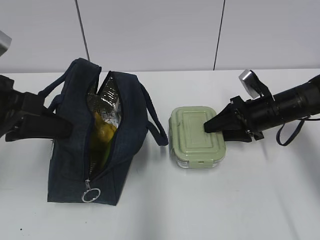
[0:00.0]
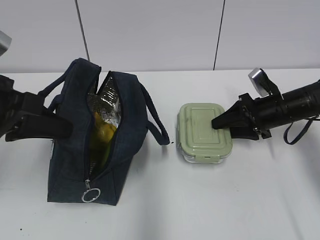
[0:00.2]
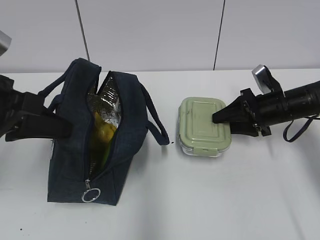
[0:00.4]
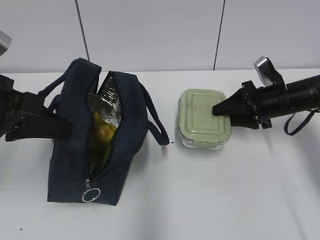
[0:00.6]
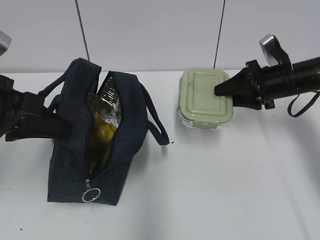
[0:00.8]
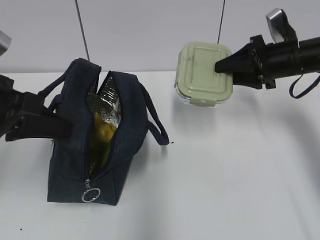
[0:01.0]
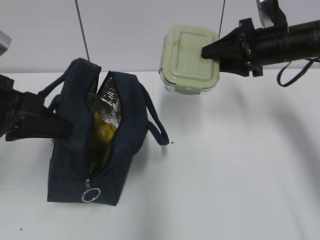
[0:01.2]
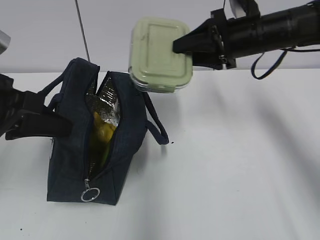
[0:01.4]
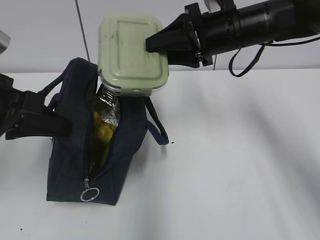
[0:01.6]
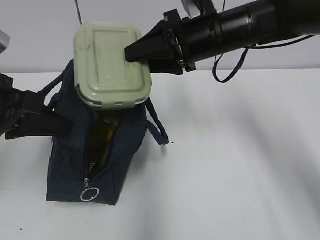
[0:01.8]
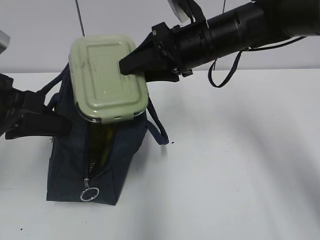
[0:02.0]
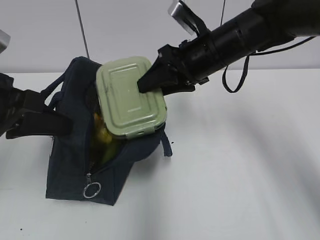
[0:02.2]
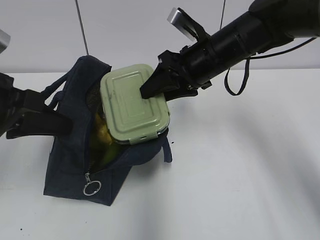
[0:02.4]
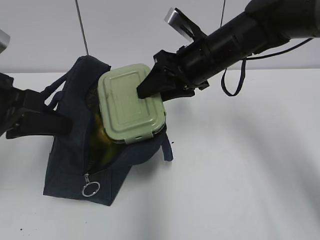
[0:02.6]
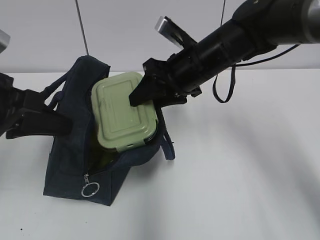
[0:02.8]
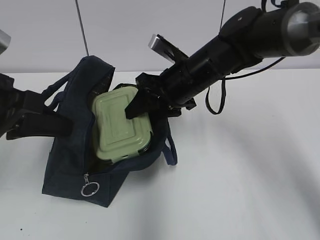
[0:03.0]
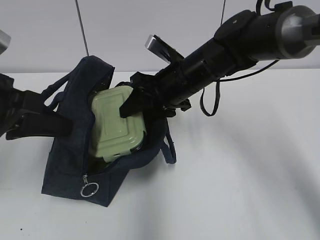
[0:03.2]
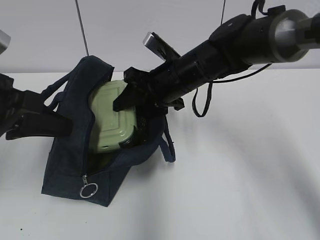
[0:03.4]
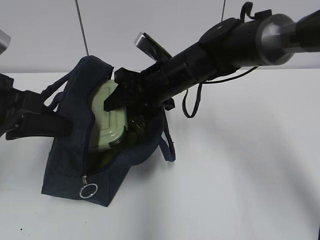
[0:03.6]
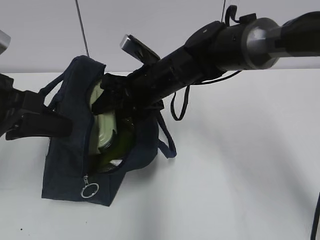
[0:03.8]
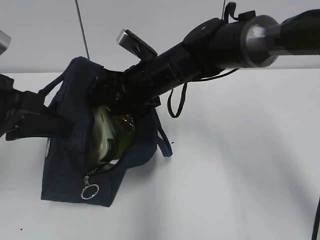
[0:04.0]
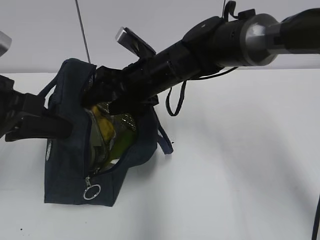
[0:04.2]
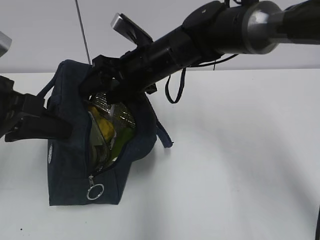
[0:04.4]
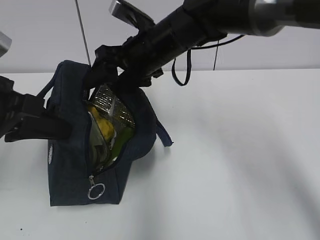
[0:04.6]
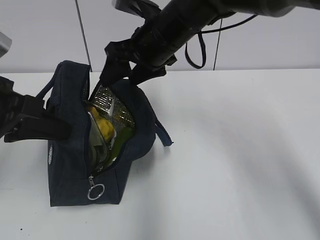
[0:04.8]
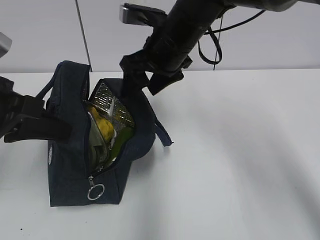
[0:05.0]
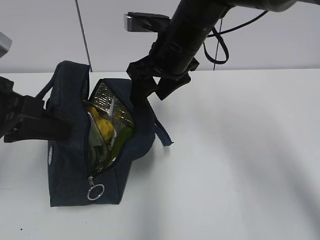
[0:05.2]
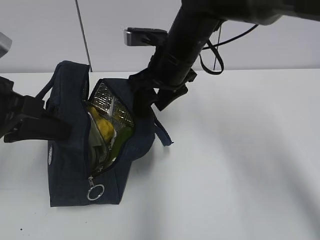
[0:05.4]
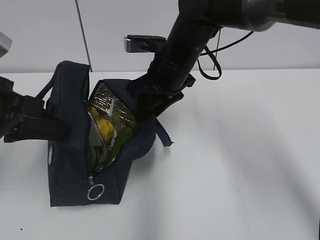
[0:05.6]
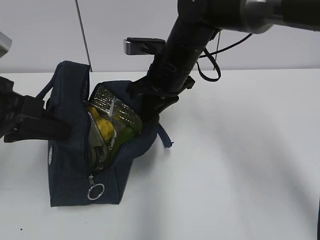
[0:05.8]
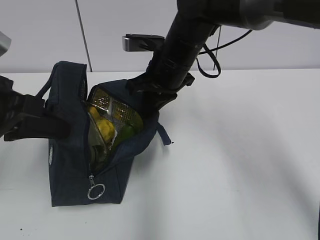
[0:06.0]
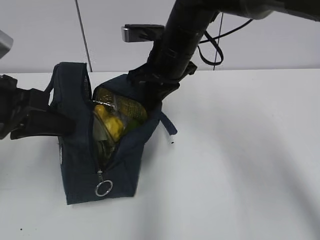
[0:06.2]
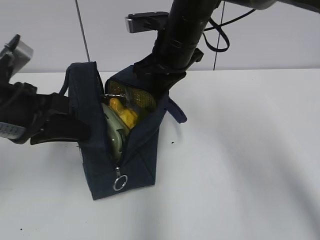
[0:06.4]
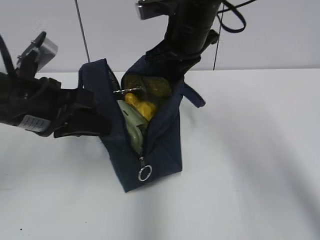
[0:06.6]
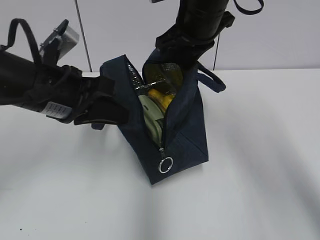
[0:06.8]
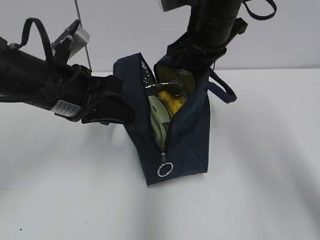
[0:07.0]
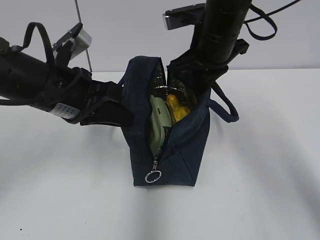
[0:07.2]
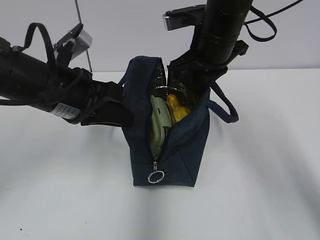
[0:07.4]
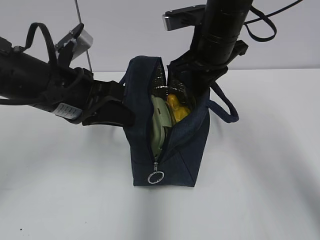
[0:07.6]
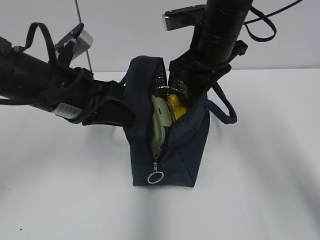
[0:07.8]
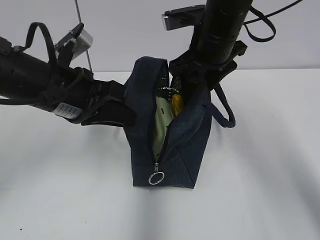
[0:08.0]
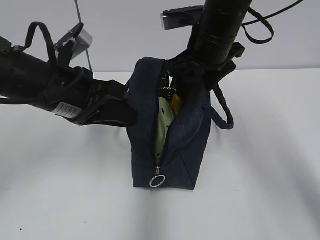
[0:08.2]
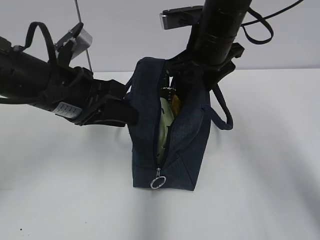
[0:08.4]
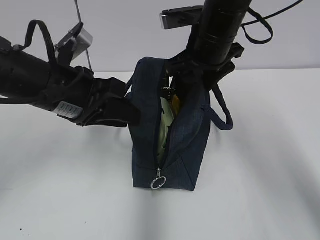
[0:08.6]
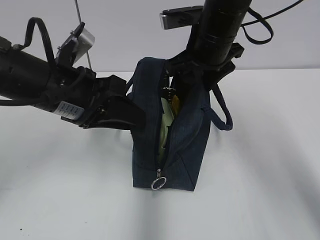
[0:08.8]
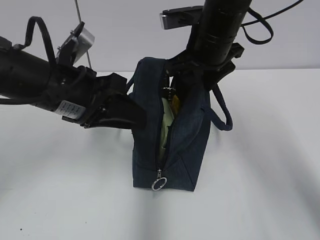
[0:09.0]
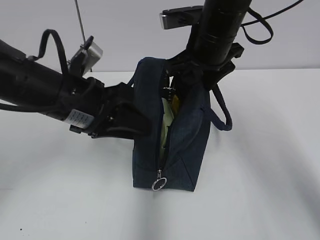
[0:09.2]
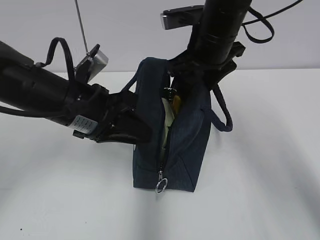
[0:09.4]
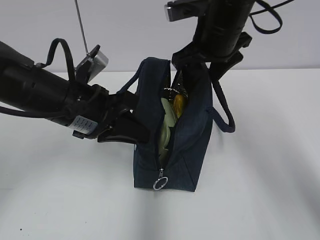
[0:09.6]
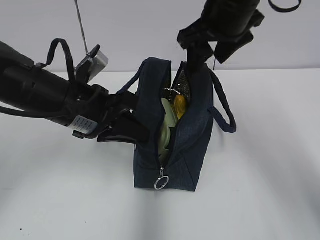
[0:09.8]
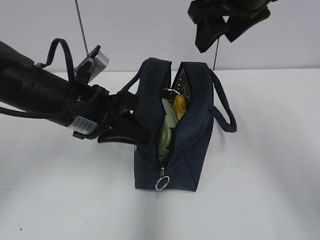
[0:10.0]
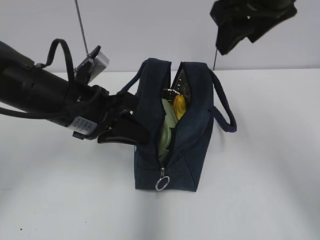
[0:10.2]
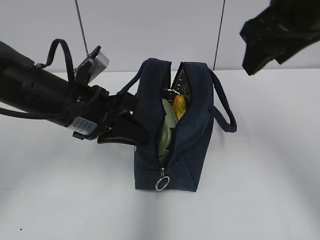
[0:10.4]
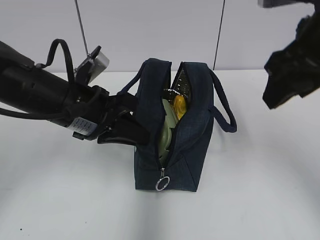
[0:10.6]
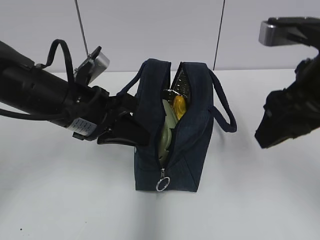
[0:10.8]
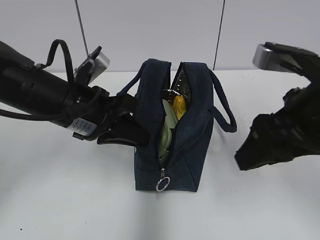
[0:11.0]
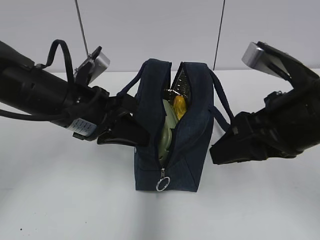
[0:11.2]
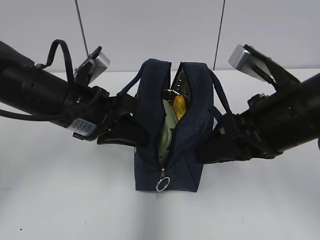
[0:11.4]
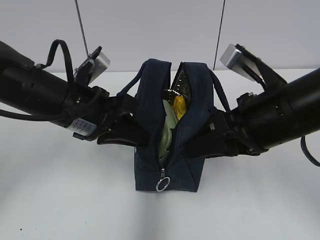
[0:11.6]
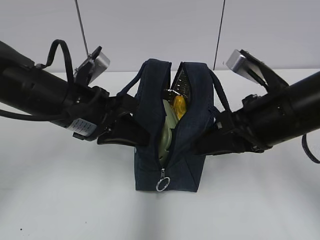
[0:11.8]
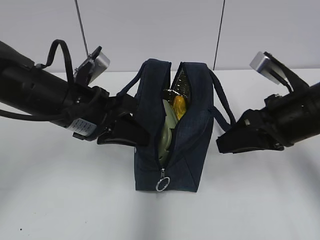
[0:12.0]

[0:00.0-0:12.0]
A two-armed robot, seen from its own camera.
Step, 0:04.6 to 0:05.8: Grab the lunch bag with your right hand.
Step, 0:06.0 to 0:09.4: Move the lunch bag to the right.
0:00.0 to 0:01.6: The right gripper heads upward and to the left, covering about 20 cm.
0:01.6 to 0:03.0: The right gripper heads downward and to the left, covering roughly 10 cm.
0:03.0 to 0:04.4: The right gripper goes some 5 cm to the left.
0:04.4 to 0:06.0: The right gripper closes.
0:06.0 to 0:07.6: The right gripper moves to the right, some 5 cm. Meanwhile the left gripper heads to the right and forward, covering roughly 10 cm.
0:07.6 to 0:09.0: The left gripper opens; the right gripper opens its fingers.
0:09.0 to 0:10.4: The left gripper closes its fingers. The right gripper goes about 15 cm backward, to the right and upward.
0:10.4 to 0:12.0: The right gripper heads downward, covering about 15 cm.

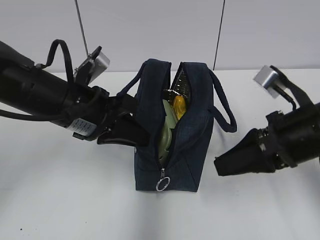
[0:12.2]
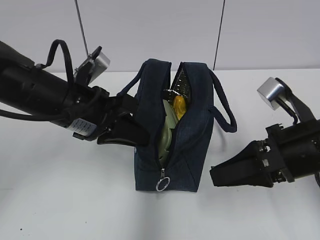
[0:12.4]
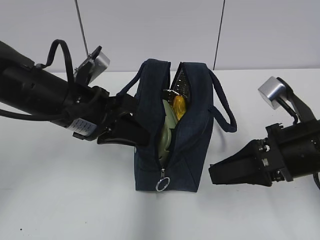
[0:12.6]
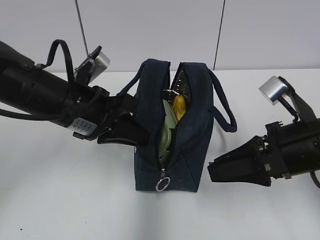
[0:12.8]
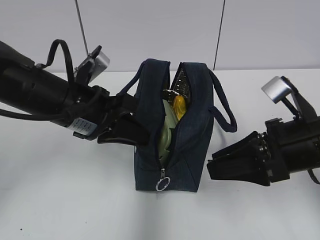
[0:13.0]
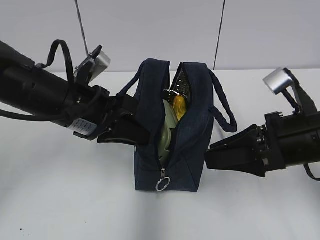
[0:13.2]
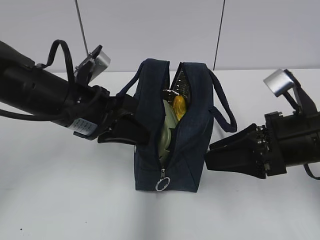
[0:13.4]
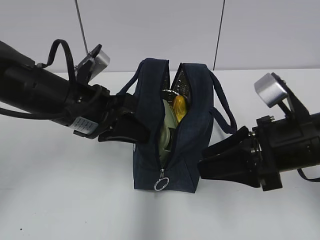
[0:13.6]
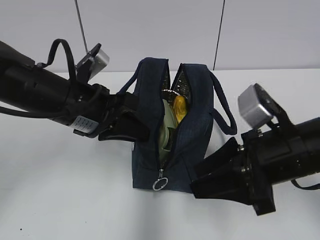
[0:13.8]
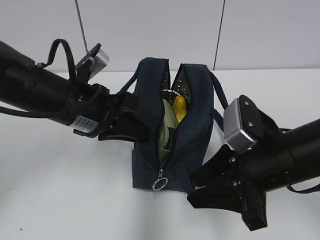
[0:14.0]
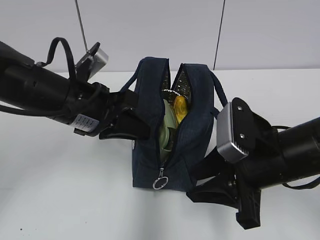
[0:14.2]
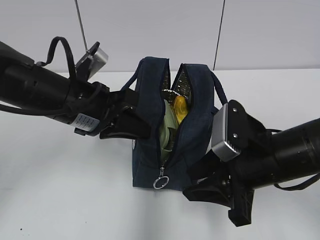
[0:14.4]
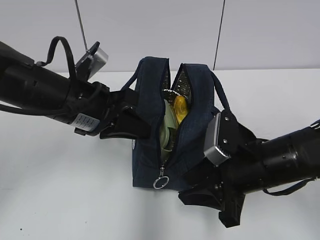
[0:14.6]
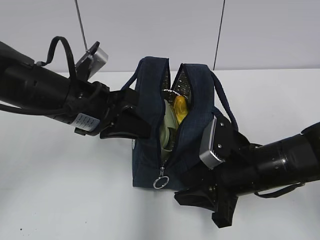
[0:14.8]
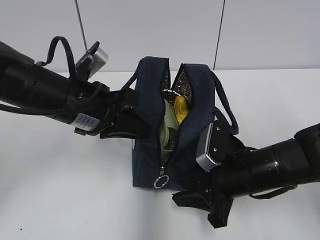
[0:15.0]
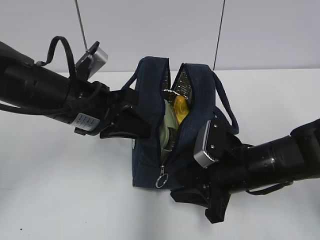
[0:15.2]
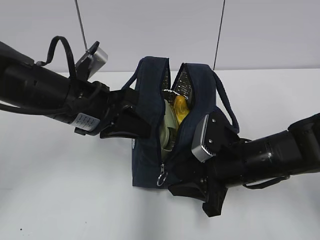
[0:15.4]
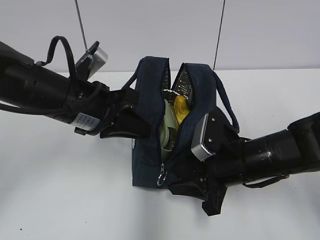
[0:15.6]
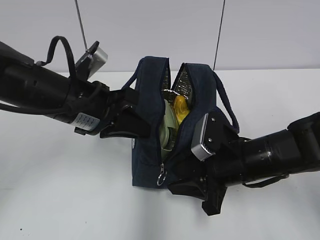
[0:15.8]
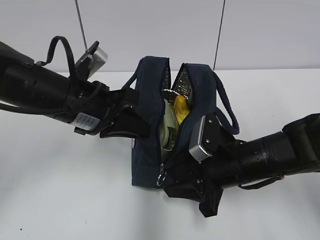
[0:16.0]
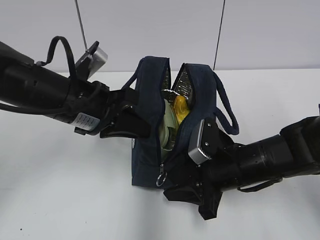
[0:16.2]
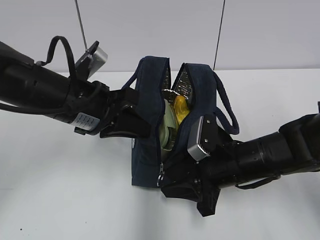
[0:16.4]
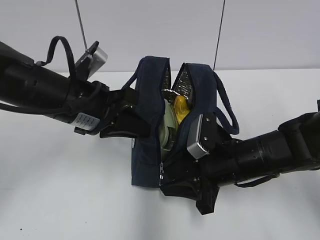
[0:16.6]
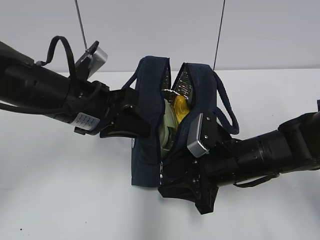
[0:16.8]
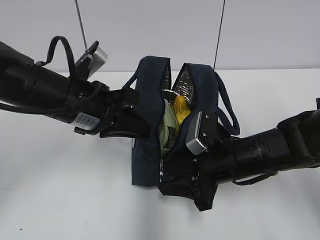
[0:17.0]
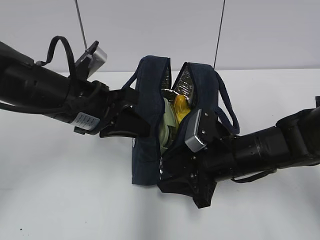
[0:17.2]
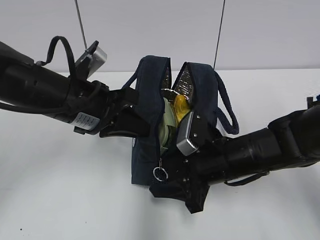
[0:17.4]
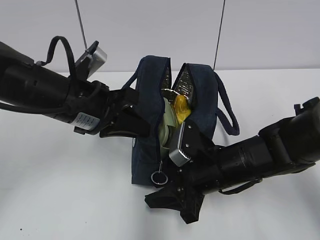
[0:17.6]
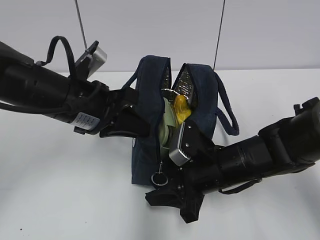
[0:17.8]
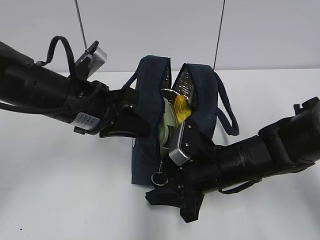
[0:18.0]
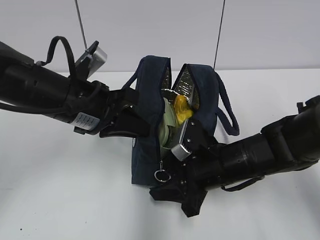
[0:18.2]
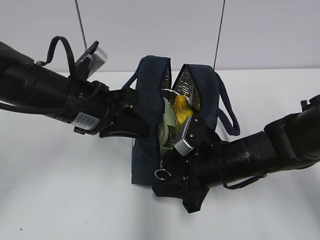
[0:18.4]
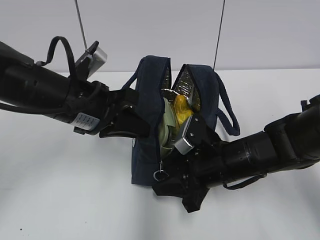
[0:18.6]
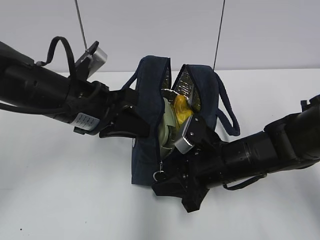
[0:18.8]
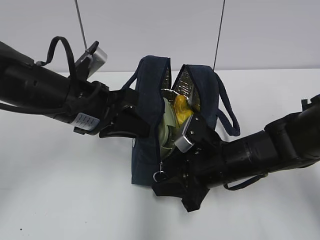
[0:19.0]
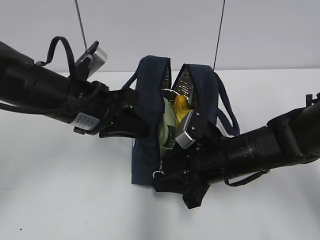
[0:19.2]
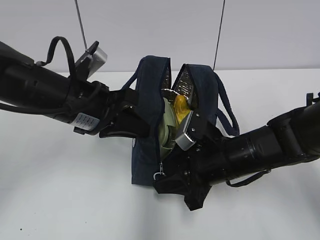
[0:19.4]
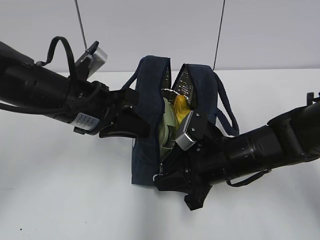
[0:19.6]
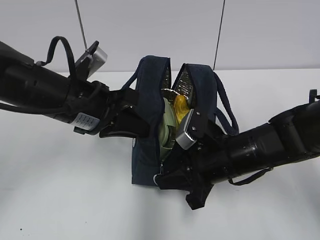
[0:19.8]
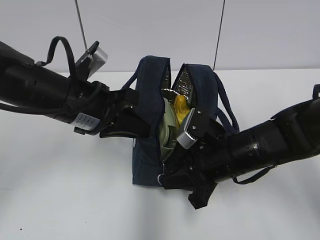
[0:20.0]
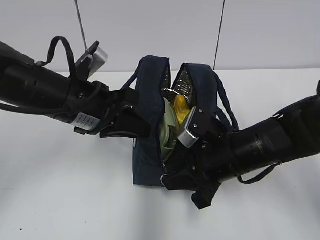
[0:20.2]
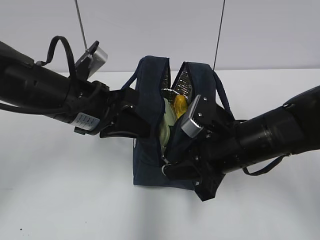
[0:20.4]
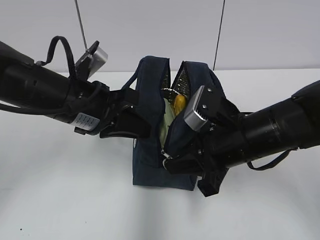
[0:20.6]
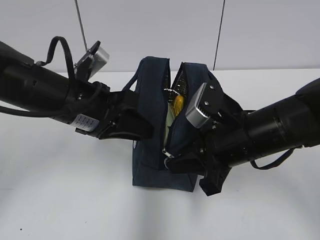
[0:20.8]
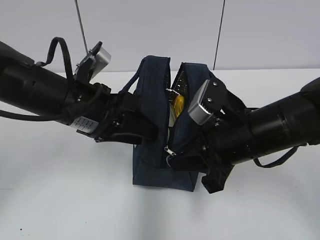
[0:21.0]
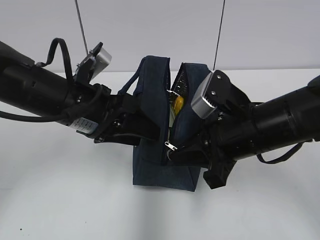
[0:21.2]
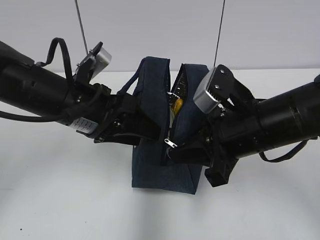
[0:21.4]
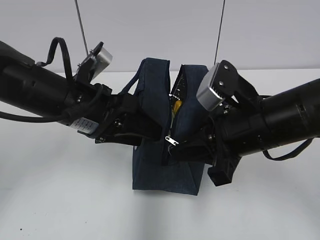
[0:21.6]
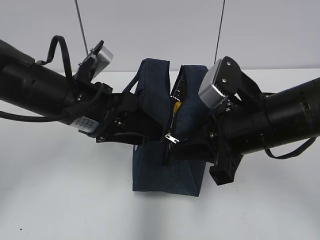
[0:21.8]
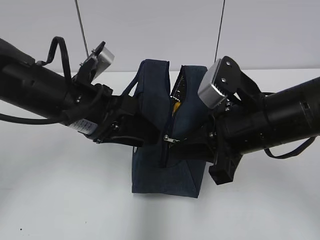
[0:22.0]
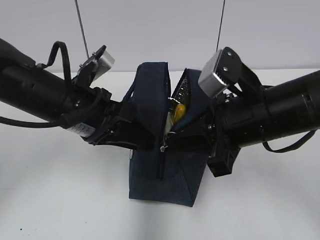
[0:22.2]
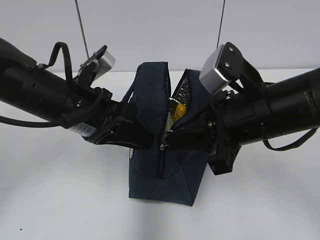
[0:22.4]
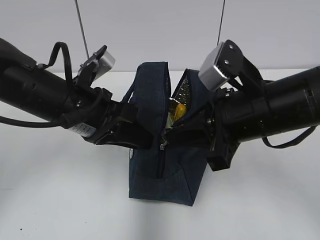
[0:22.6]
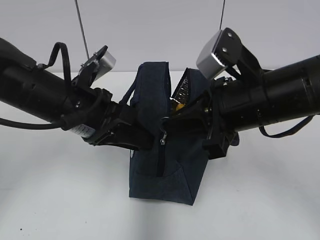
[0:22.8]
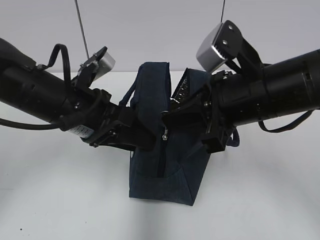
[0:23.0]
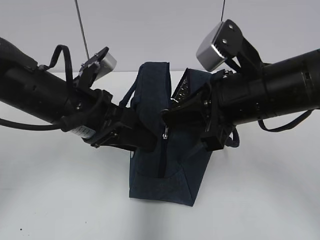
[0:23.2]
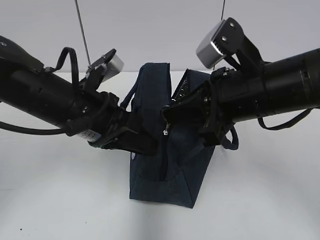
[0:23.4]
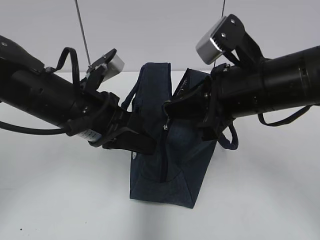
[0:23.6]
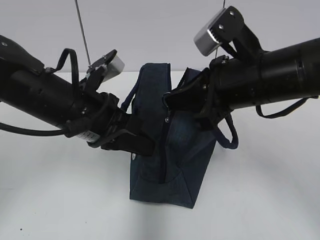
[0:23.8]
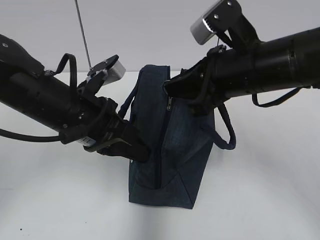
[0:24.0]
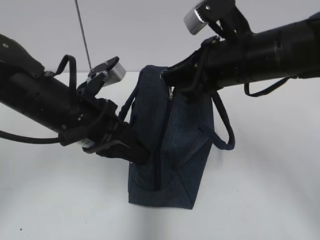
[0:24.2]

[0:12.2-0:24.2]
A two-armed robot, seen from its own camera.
0:13.8 to 0:15.2: The right gripper shifts some 10 cm downward.
0:15.2 to 0:18.2: The grippers stay close to where they were, moving slightly.
0:18.2 to 0:19.8: The right gripper closes its fingers.
0:19.8 to 0:21.2: The right gripper travels upward by roughly 10 cm. Meanwhile the left gripper opens.
0:21.2 to 0:22.6: The left gripper closes.
0:22.6 to 0:24.2: The right gripper moves forward, approximately 5 cm, while the left gripper closes up.
